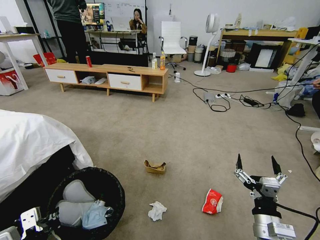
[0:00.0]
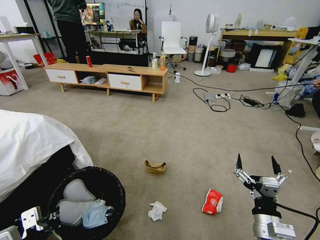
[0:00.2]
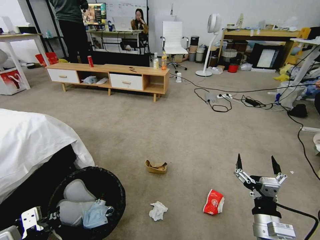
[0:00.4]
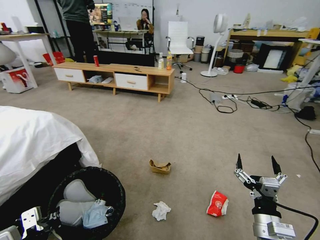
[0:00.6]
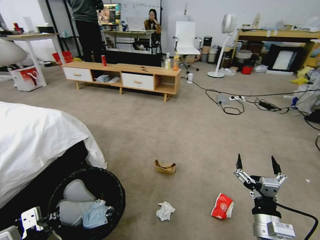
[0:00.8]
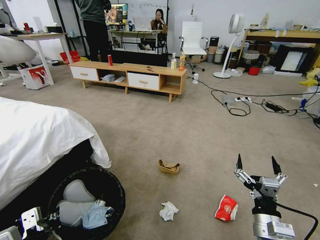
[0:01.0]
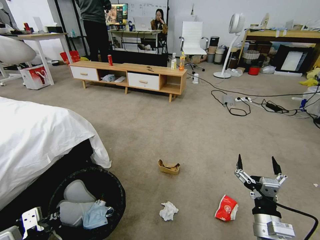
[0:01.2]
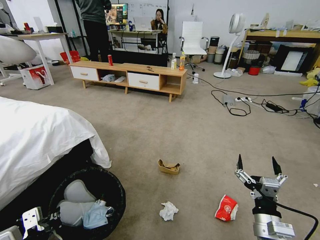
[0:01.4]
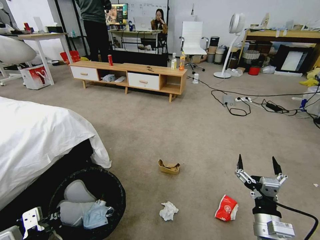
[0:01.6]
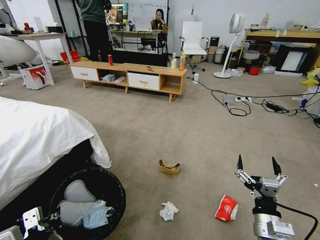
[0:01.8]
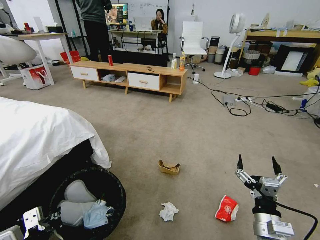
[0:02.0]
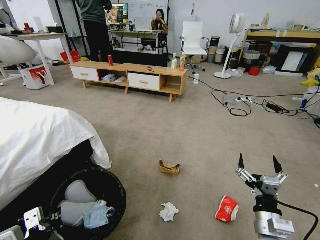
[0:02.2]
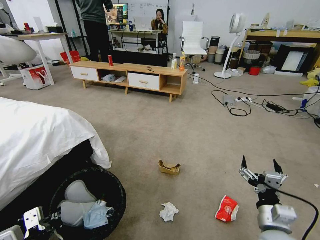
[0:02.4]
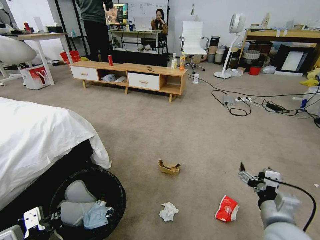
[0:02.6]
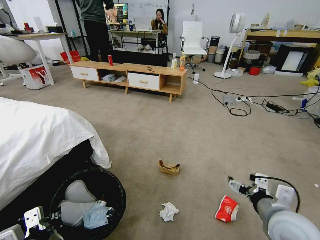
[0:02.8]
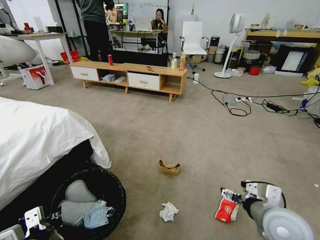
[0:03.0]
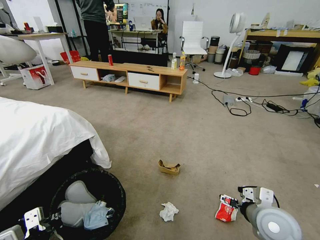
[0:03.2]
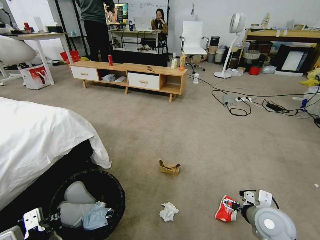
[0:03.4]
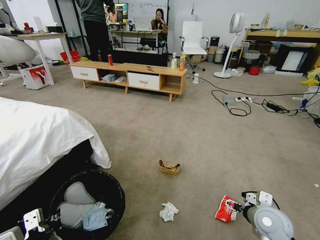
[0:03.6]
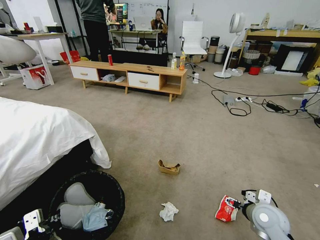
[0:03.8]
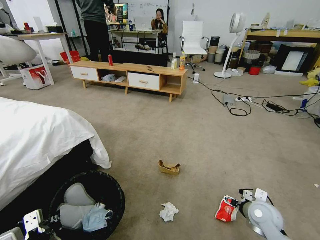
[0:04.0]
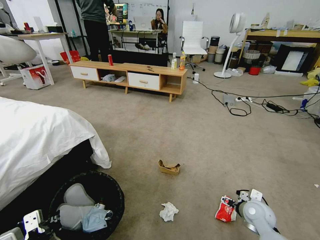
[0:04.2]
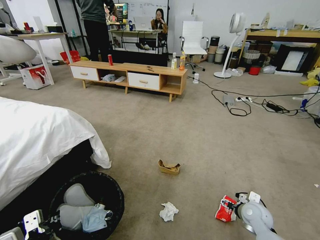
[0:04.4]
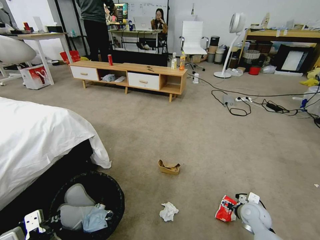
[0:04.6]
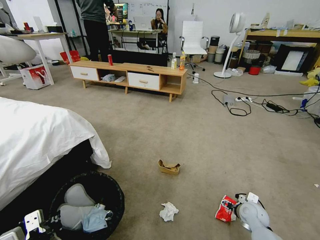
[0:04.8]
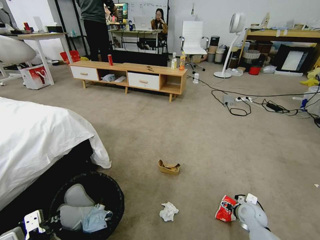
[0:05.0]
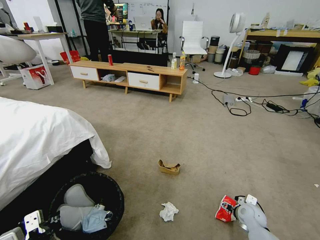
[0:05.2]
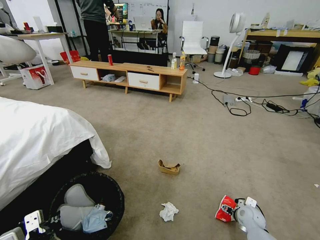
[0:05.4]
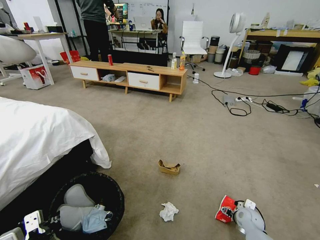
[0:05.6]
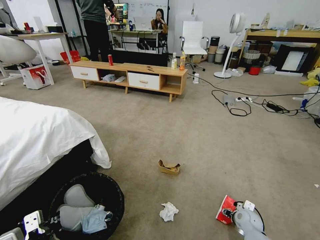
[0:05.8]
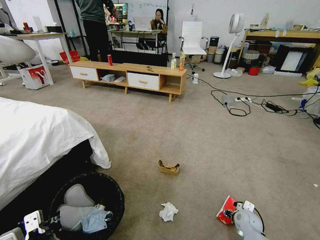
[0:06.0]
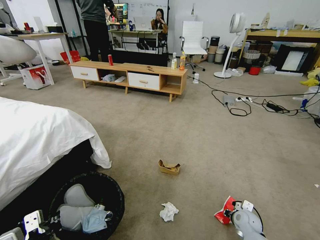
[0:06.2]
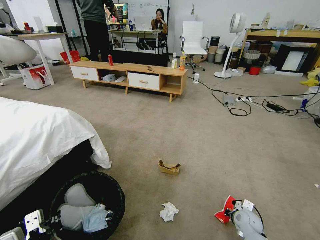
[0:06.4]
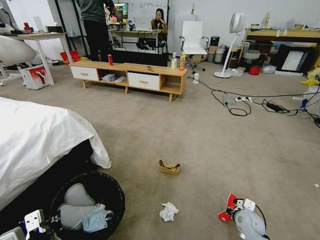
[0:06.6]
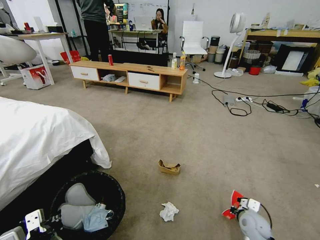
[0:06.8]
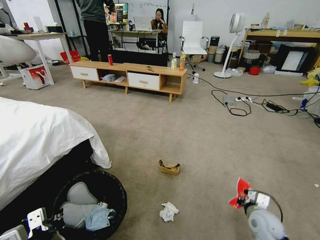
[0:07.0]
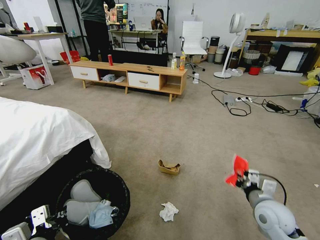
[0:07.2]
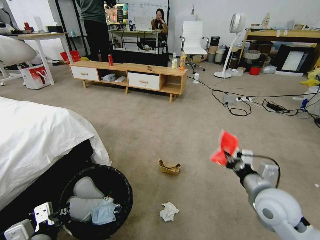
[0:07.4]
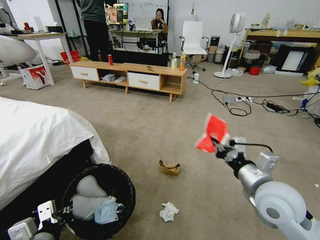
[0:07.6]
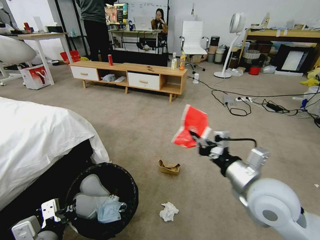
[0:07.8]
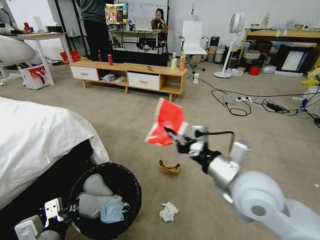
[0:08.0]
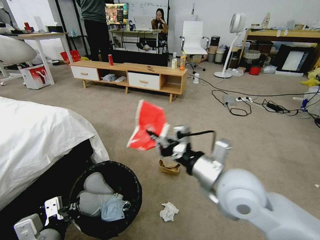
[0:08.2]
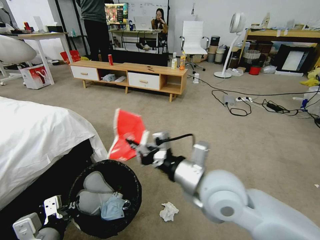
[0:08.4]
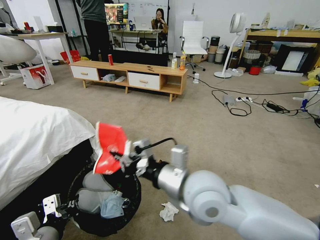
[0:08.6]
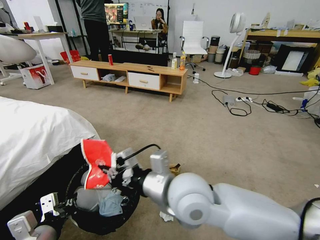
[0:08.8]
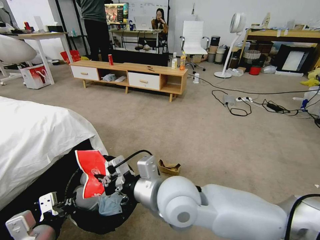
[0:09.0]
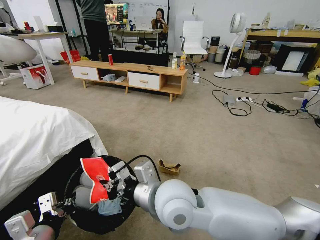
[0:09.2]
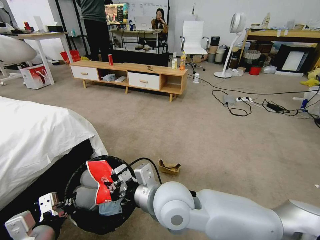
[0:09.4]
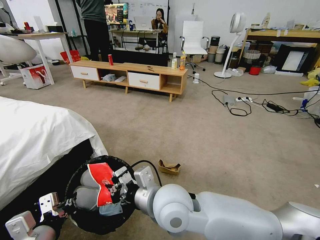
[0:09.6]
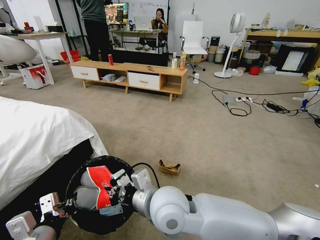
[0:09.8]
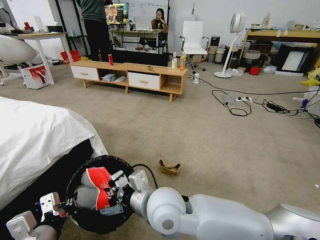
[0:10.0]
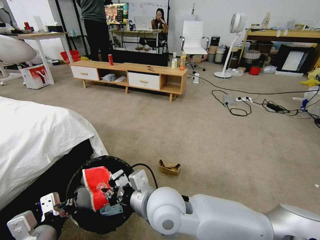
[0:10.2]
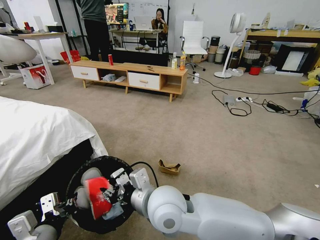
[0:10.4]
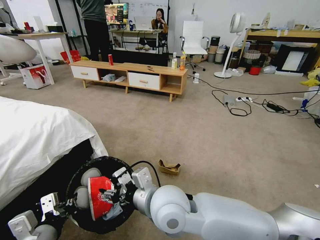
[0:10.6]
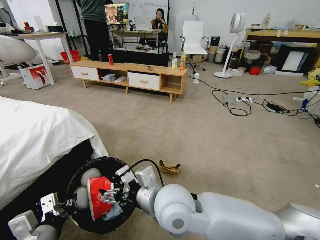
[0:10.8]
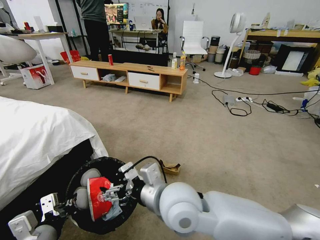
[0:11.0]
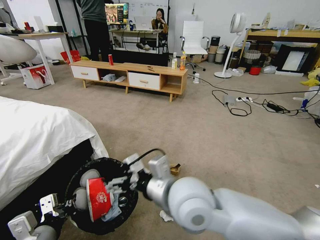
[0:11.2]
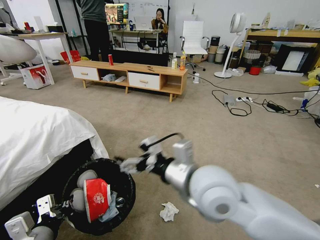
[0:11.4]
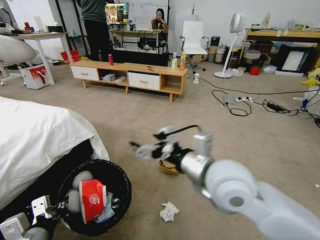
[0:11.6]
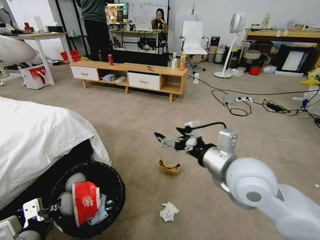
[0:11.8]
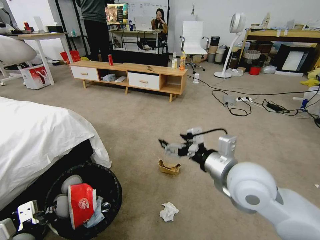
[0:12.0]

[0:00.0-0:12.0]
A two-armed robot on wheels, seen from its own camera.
Task of the whole recording: Pick up the trash bin and place the garbage on the floor into it.
0:01.6 to 0:03.0: The right gripper heads upward, covering some 10 cm.
0:03.0 to 0:04.4: The right gripper shifts roughly 20 cm downward and forward.
0:04.4 to 0:06.0: The right gripper moves downward, approximately 10 cm, and closes up.
0:06.0 to 0:07.6: The right gripper moves upward, some 35 cm, and closes.
0:07.6 to 0:09.0: The right gripper travels to the left by roughly 25 cm.
0:09.0 to 0:10.4: The right gripper opens its fingers.
0:10.4 to 0:12.0: The right gripper shifts about 20 cm to the right, and opens its fingers.

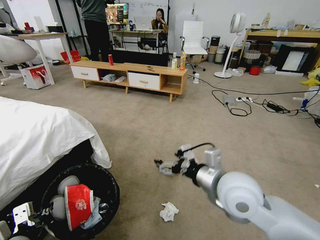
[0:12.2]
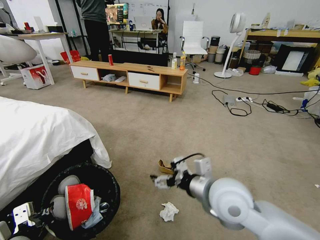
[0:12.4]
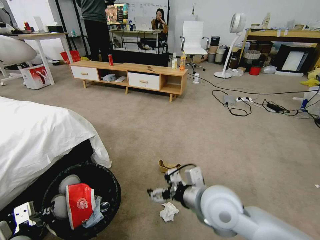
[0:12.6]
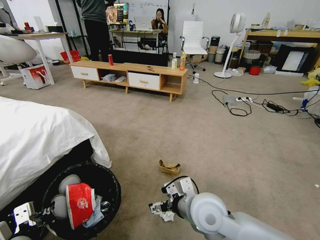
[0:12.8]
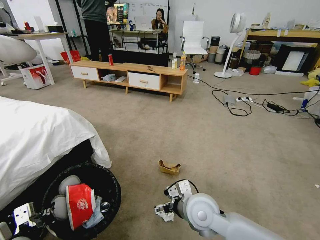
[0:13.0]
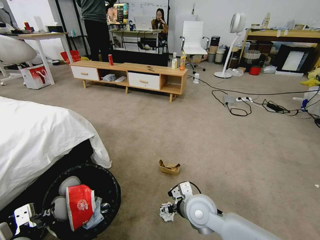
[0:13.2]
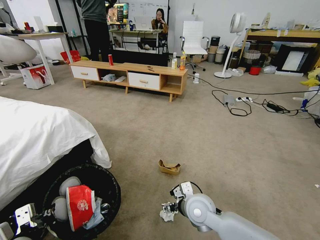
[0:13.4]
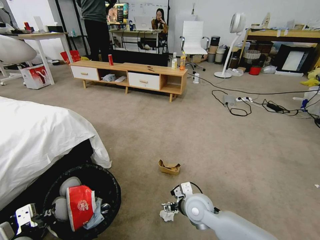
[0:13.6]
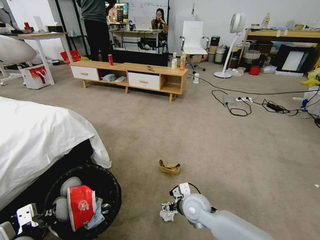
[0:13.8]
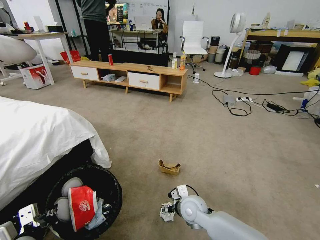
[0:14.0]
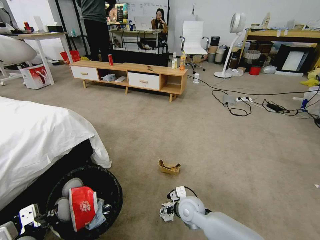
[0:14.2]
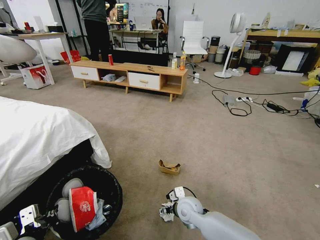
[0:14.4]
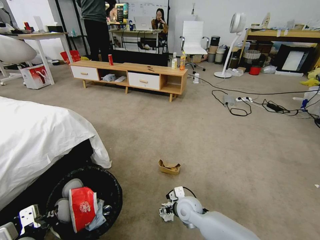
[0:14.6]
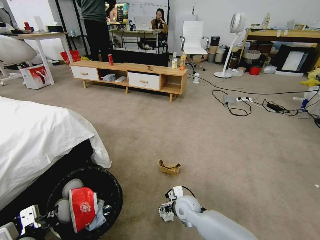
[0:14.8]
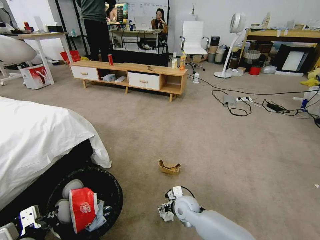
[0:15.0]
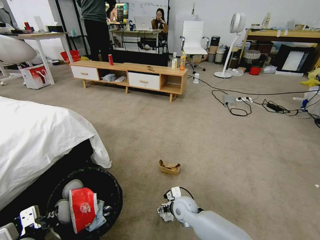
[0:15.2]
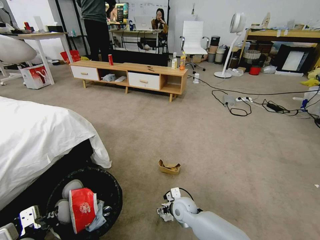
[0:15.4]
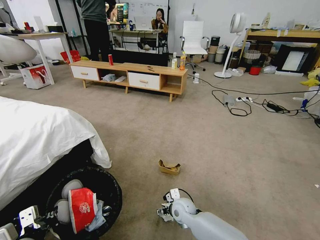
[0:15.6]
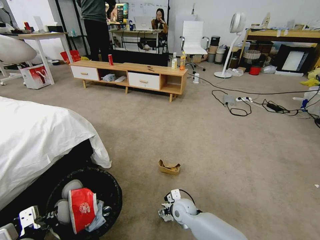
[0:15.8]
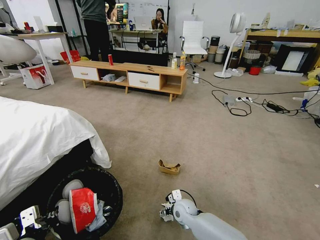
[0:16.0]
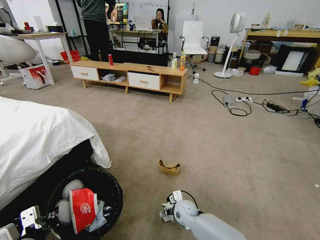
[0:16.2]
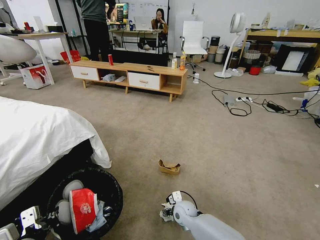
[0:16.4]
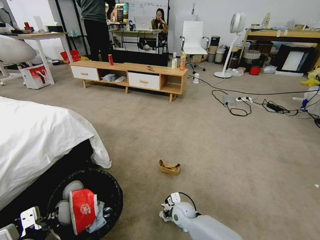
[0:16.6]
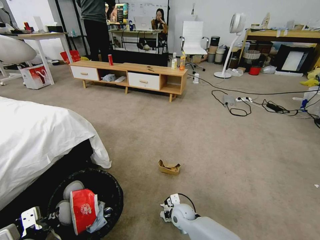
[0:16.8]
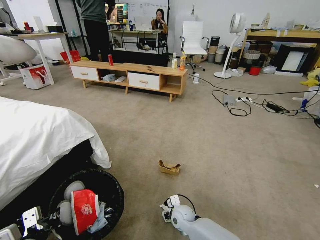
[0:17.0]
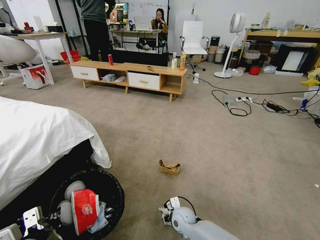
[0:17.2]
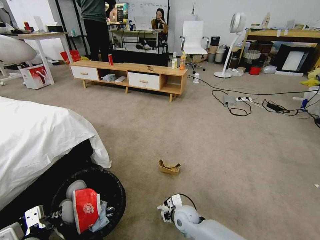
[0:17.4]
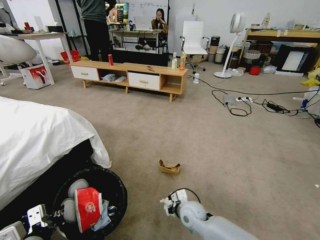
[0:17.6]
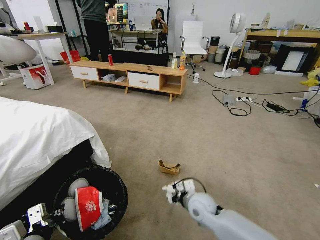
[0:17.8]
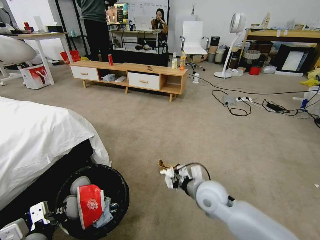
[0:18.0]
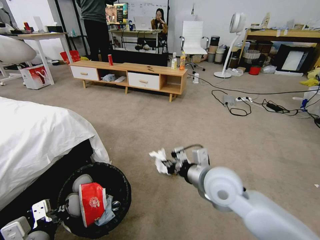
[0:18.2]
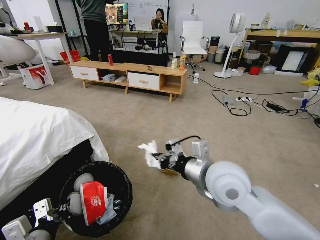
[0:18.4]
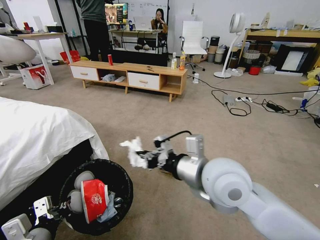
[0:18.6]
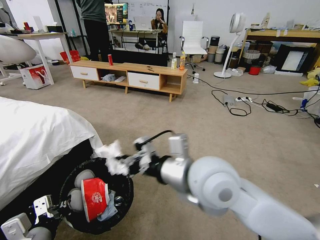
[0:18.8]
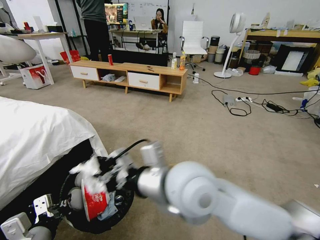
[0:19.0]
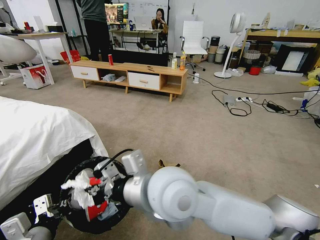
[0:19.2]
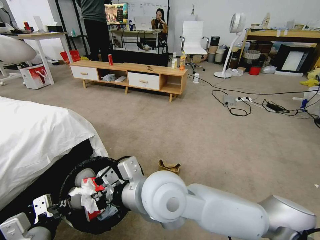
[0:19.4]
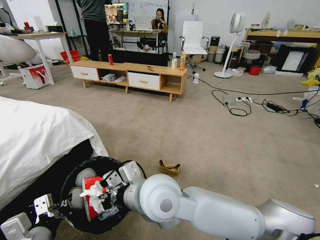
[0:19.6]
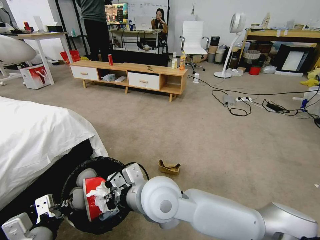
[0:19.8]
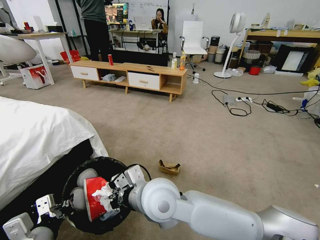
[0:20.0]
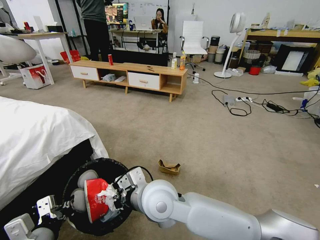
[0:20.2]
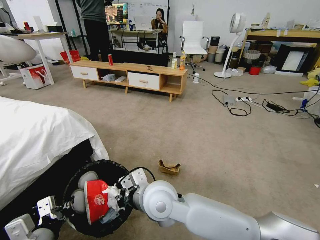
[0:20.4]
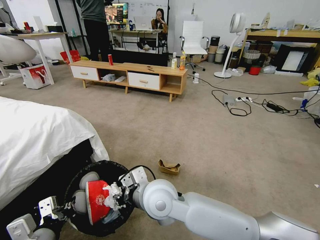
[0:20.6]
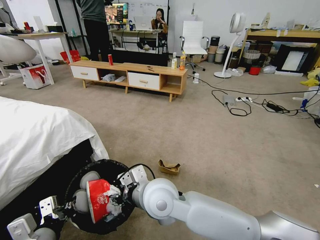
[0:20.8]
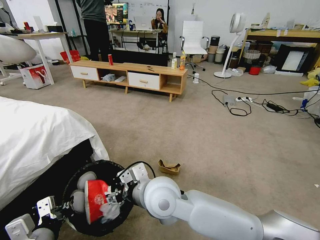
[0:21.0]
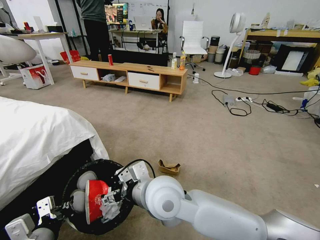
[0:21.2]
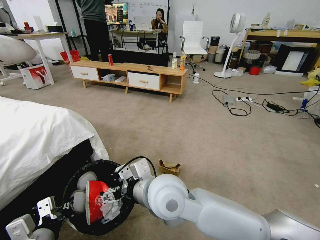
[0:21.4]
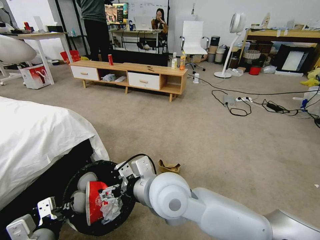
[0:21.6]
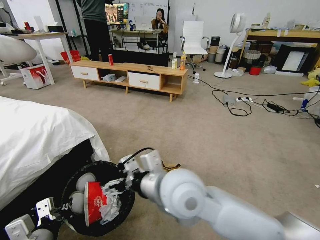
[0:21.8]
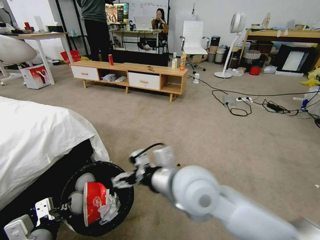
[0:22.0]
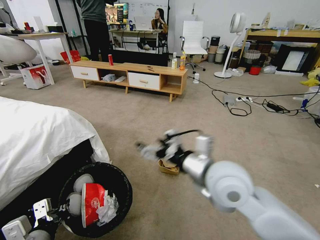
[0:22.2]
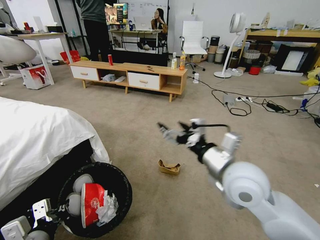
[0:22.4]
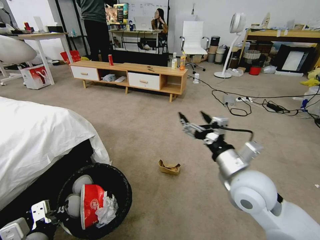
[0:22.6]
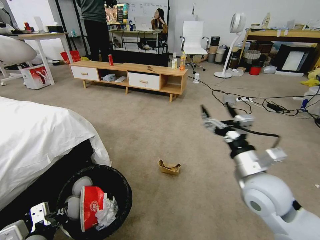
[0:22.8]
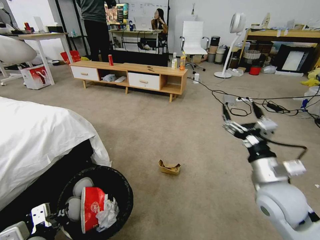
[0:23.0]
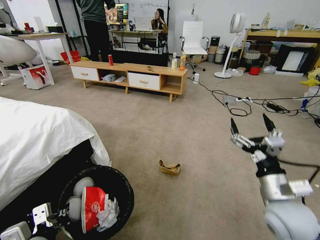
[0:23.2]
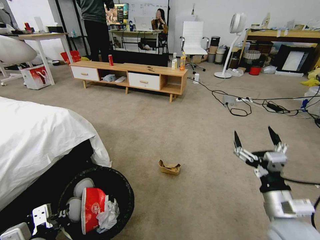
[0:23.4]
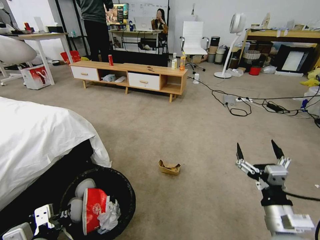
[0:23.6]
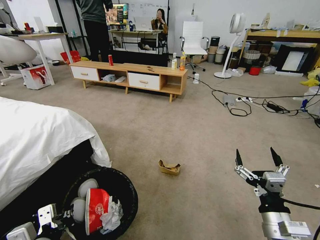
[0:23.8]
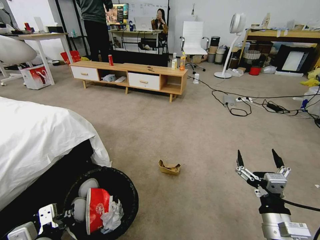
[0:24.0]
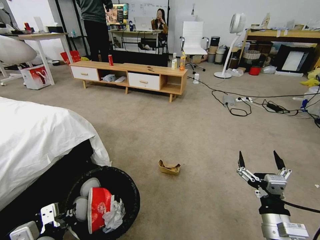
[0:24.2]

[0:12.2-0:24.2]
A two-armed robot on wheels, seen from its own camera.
Task of the whole recording: Pick up the trash bin and place the garbage on the floor into it.
0:12.2 to 0:13.8: The right gripper moves downward, about 20 cm.
0:13.8 to 0:15.2: The right gripper is displaced downward by about 10 cm.
0:15.2 to 0:16.6: The right gripper shifts some 5 cm downward, and closes up.
0:16.6 to 0:18.2: The right gripper moves upward, roughly 30 cm, and closes.
0:18.2 to 0:19.8: The right gripper moves to the left, some 15 cm.
0:19.8 to 0:21.2: The right gripper opens.
0:21.2 to 0:22.6: The right gripper heads to the right, covering approximately 20 cm.
0:22.6 to 0:24.2: The right gripper moves downward, backward and to the right, about 20 cm.
